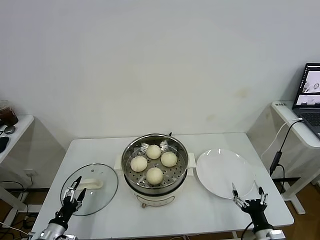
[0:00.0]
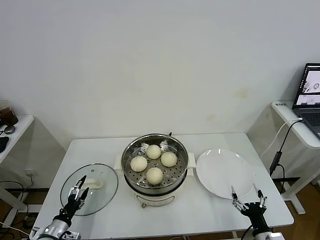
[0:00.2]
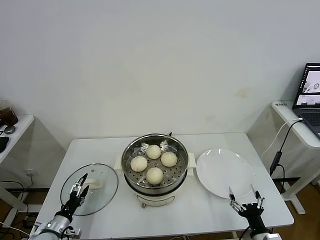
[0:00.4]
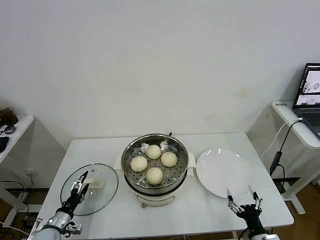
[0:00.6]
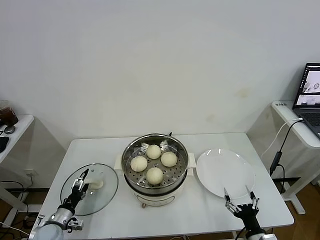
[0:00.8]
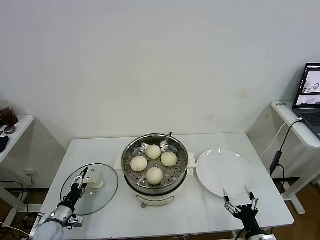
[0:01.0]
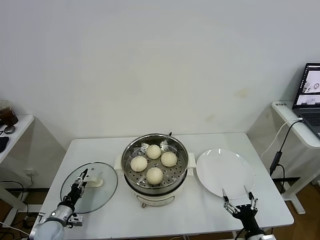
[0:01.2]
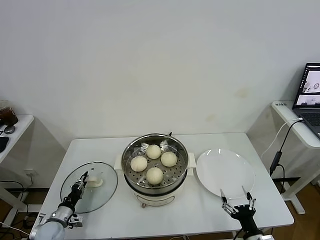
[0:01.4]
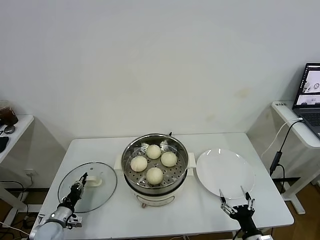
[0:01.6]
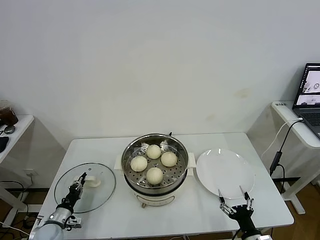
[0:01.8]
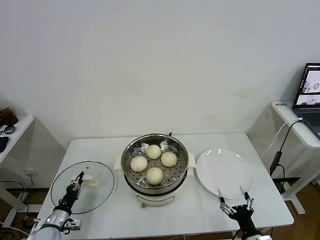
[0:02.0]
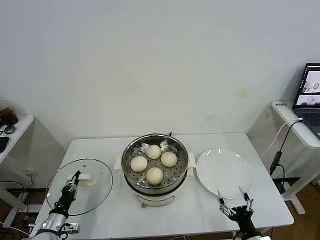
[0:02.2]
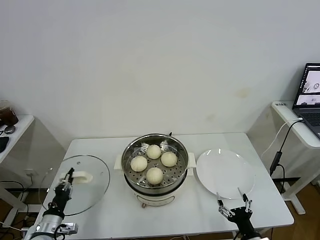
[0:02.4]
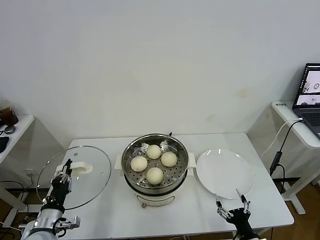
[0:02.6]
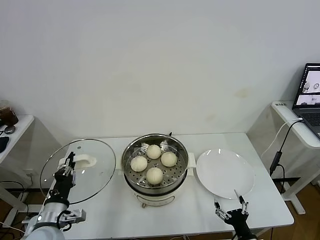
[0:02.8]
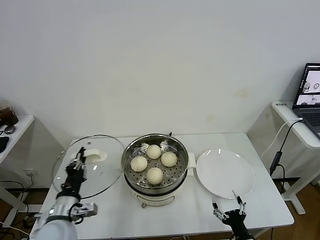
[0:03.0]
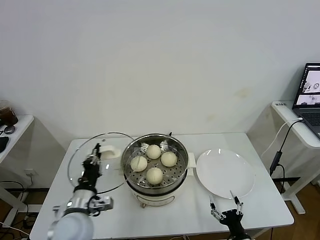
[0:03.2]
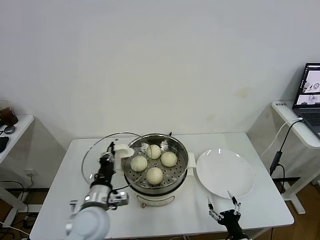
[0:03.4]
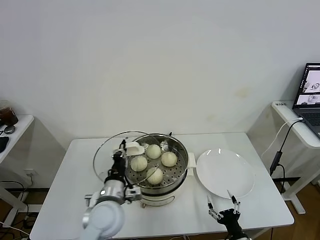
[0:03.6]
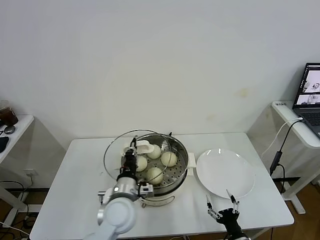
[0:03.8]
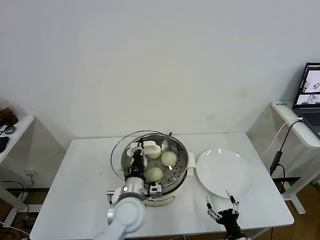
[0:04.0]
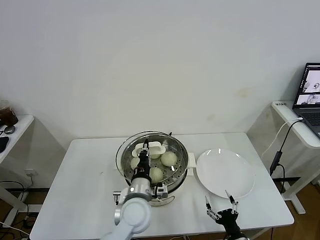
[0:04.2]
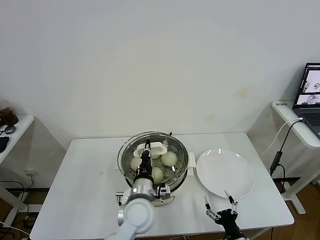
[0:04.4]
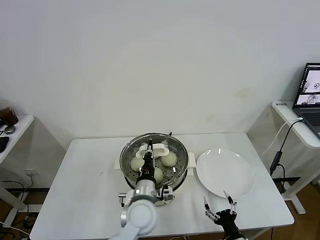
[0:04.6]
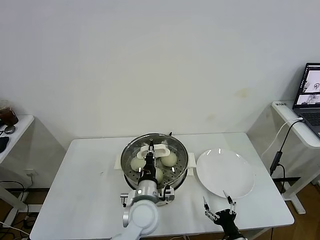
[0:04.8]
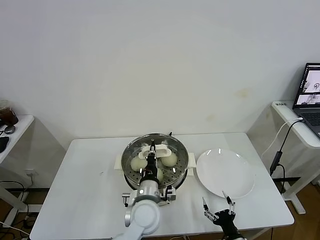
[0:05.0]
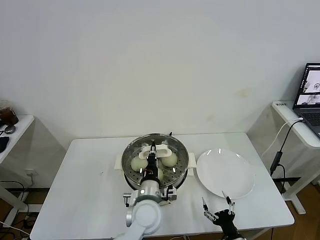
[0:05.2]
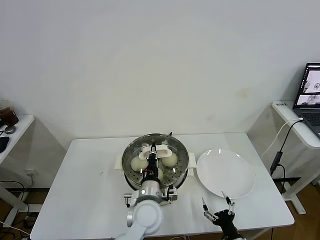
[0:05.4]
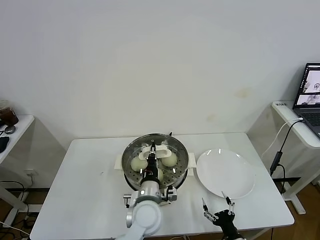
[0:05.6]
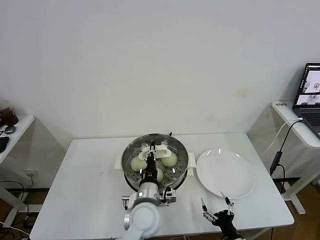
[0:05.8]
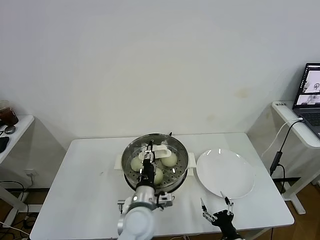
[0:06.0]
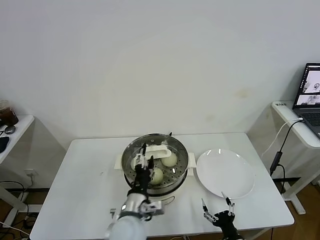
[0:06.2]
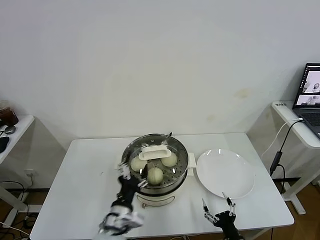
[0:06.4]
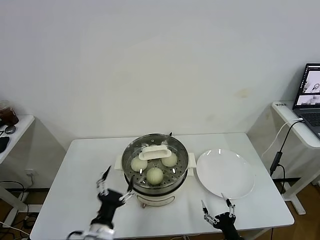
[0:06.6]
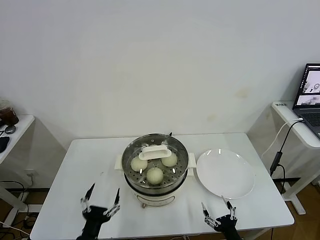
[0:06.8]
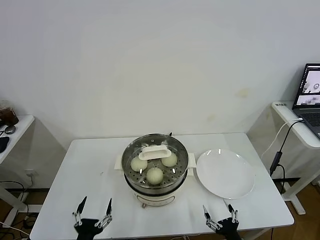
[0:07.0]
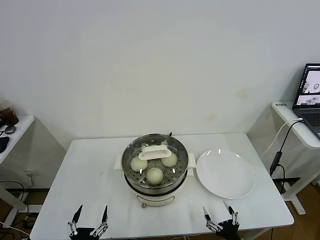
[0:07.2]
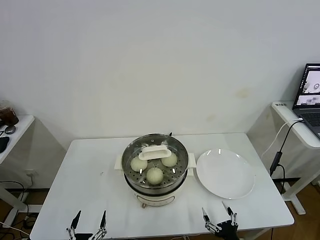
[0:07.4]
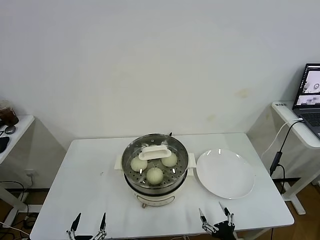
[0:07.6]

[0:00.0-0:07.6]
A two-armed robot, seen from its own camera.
Task of the whole recording: take steamed baozi put them in steamer.
Step, 1.8 to 5.8 s: Place the pot lid on the steamer with left gripper.
0.0 to 1.6 s: The left gripper goes approximately 10 cm forward, and closes up.
1.6 to 3.0 s: The left gripper shifts approximately 25 cm upward and to the right.
3.0 to 4.6 s: The left gripper shifts some 25 cm to the right.
4.6 to 6.0 s: The left gripper opens up.
6.0 to 7.6 s: The left gripper travels backward, to the left and downward by some 30 cm, and opens.

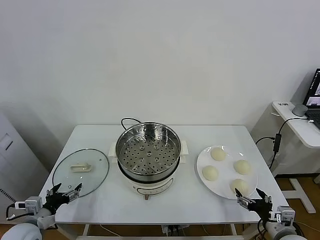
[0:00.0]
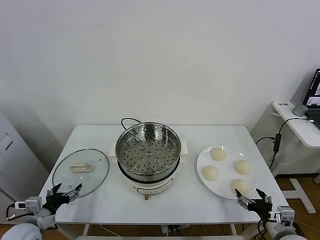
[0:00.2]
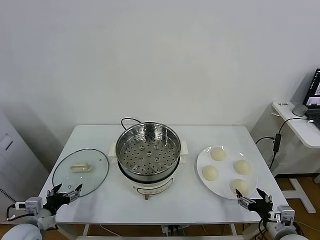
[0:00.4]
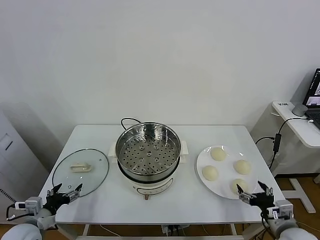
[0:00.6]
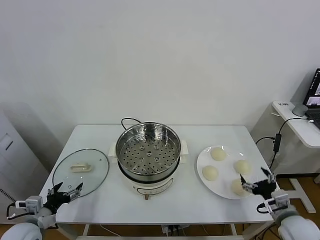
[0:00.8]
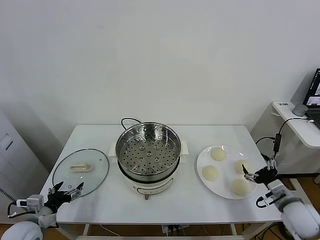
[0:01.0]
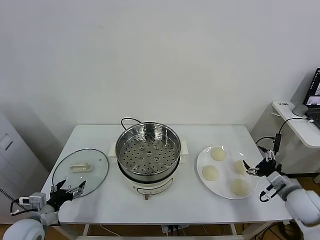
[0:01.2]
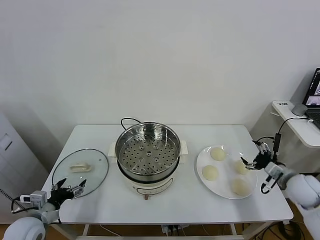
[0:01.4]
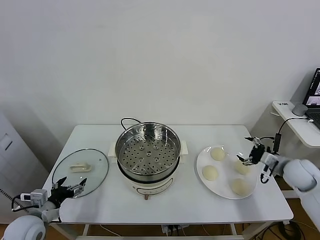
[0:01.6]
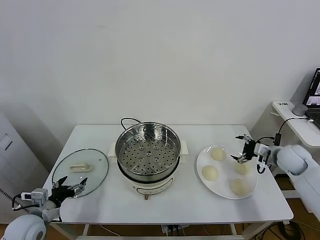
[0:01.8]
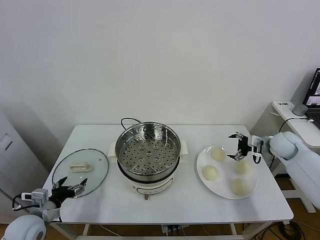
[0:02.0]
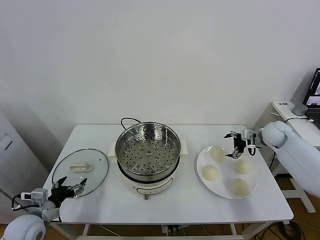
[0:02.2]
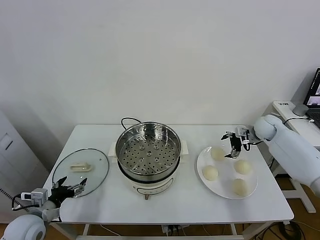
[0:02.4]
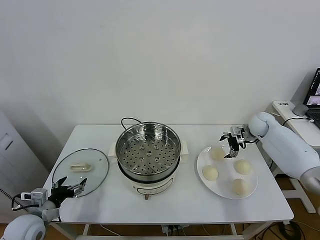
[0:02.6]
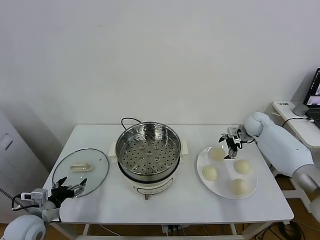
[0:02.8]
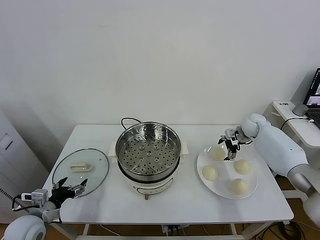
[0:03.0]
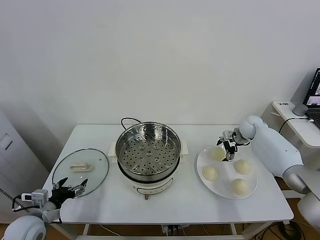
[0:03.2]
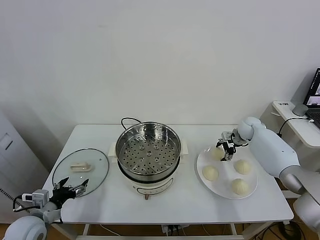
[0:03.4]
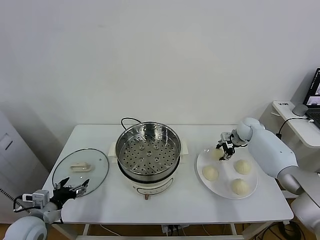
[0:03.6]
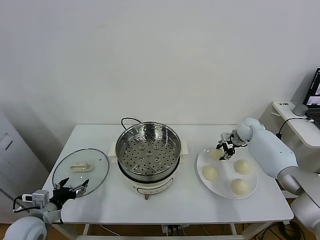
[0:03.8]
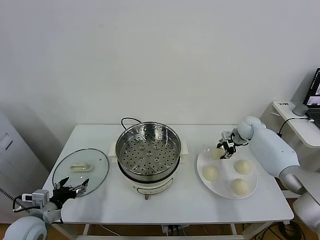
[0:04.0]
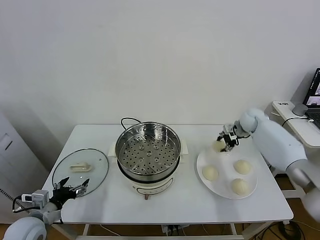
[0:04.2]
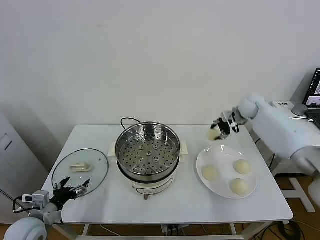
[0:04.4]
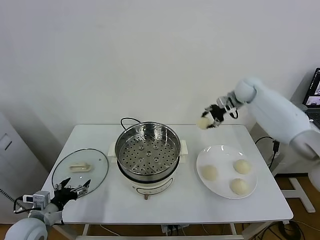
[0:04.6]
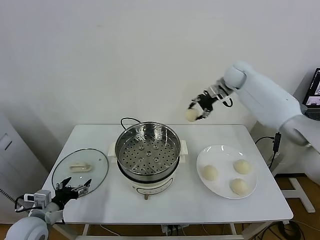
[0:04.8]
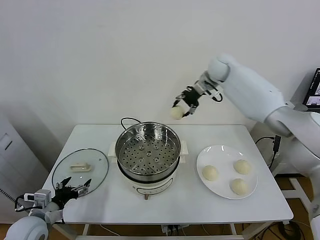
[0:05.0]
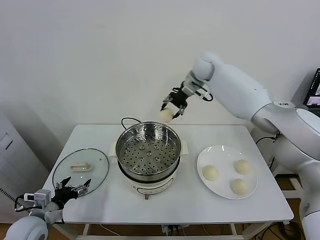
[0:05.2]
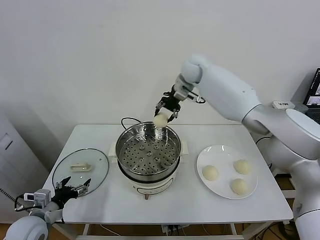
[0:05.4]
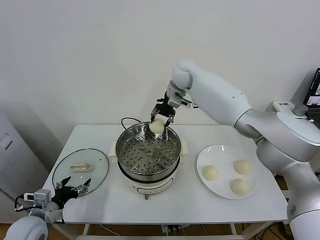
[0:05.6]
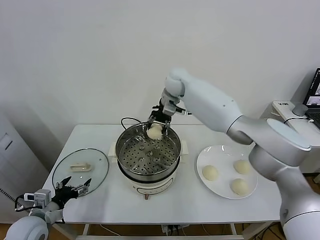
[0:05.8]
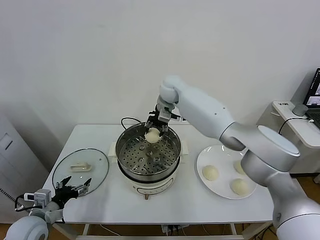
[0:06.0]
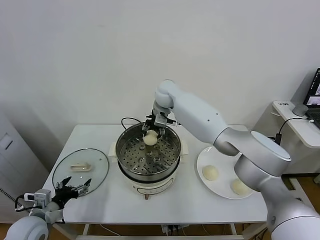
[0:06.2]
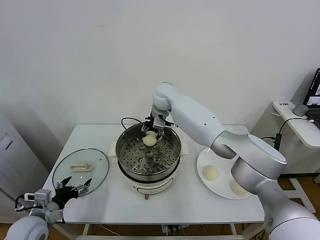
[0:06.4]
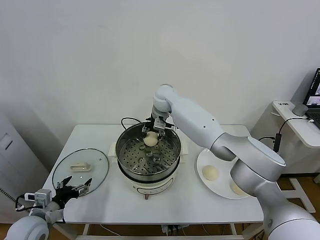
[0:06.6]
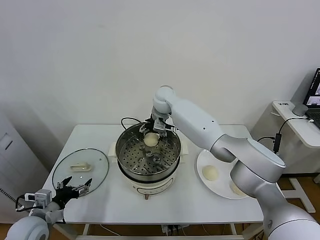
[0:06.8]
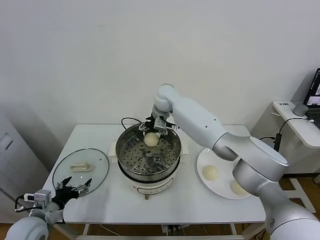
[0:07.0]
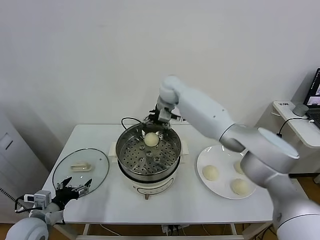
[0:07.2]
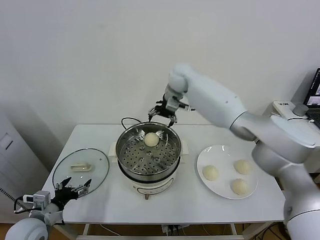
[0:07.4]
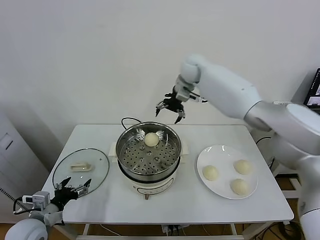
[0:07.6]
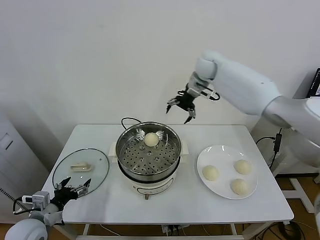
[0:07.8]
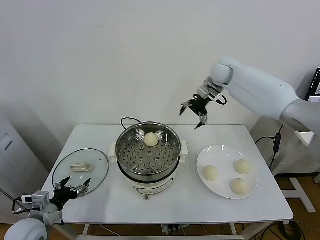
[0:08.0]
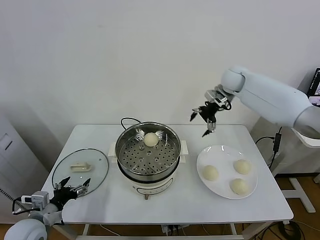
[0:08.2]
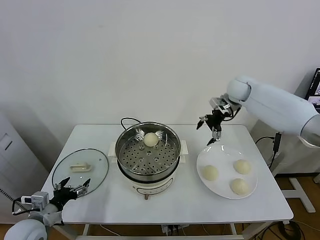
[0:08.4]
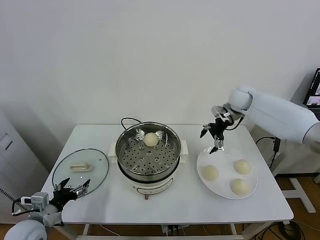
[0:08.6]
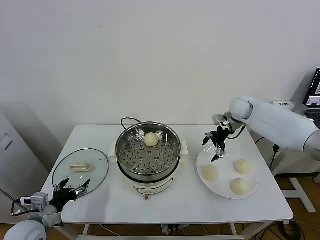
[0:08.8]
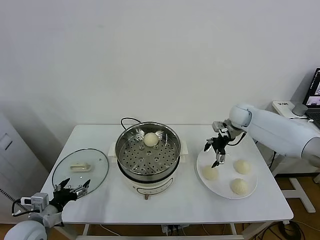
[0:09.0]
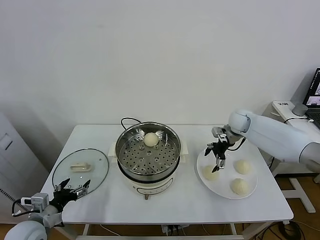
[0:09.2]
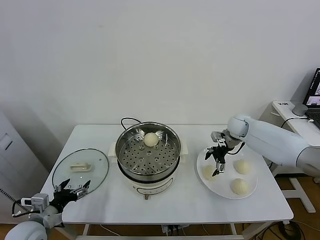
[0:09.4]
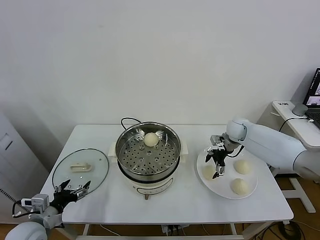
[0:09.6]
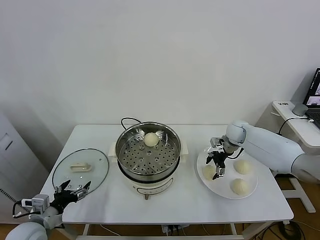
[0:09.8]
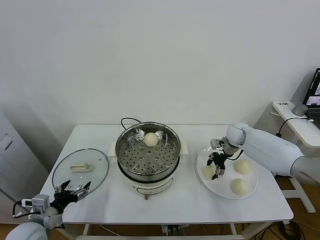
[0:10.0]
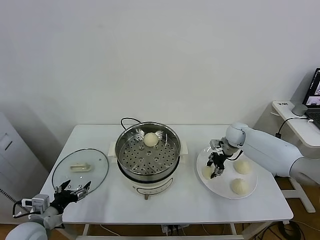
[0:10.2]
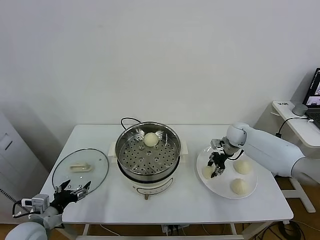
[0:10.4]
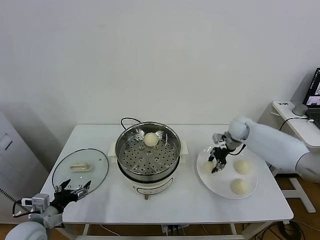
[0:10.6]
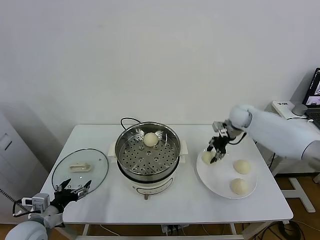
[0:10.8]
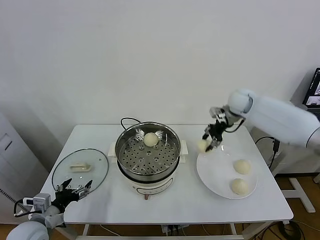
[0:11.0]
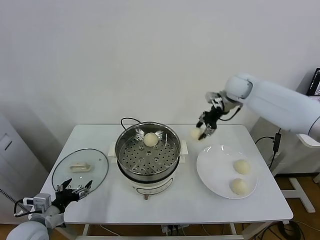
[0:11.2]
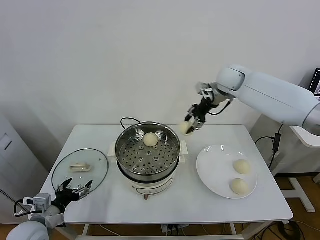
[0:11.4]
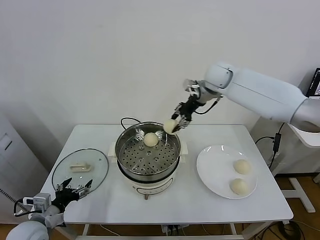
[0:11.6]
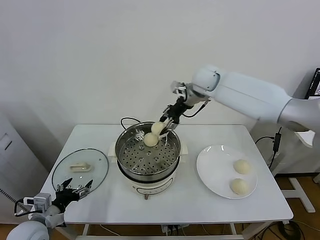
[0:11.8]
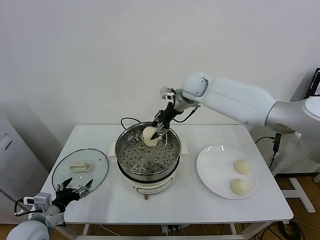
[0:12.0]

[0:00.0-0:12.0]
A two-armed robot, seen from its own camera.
Task of the whole recording: take steamed baozi put them in steamer.
Step, 0.0 to 3.6 s: Grasp the baozi in the plate with right gripper.
Step, 3.8 to 6.8 s: Place the baozi on the steamer with right gripper.
Step, 7.2 to 10.0 s: Grasp the baozi in the plate with right gripper.
1.6 to 3.0 s: The right gripper travels forward by some 20 cm.
3.0 to 4.4 s: The right gripper heads upward, covering about 15 cm, and closes its fingers.
4.4 to 6.0 s: The right gripper moves to the left, some 30 cm.
6.0 to 7.6 s: The right gripper heads to the right and upward, covering approximately 15 cm, and opens.
7.6 to 9.0 s: The right gripper goes roughly 25 cm downward and to the right.
9.0 to 10.4 s: The right gripper goes approximately 5 cm downward, and closes.
10.4 to 12.0 s: The right gripper shifts some 30 cm to the left and upward.

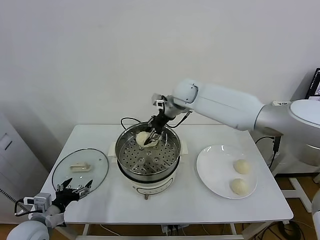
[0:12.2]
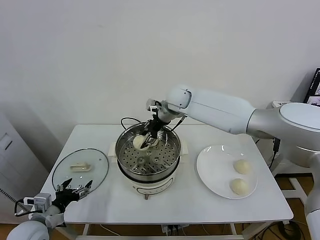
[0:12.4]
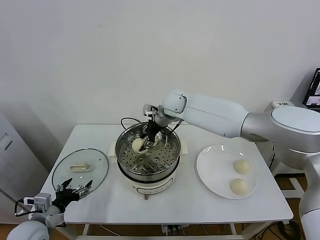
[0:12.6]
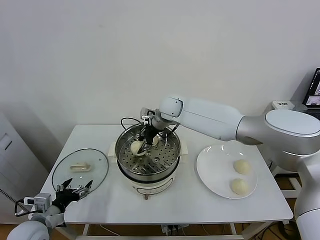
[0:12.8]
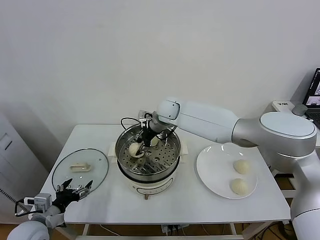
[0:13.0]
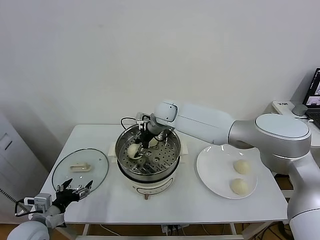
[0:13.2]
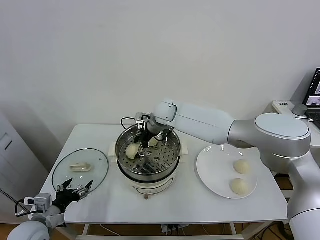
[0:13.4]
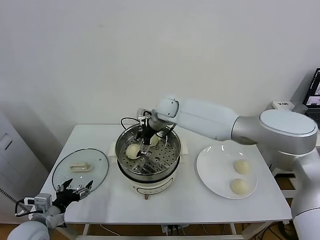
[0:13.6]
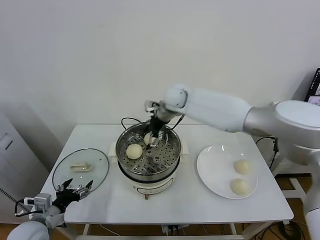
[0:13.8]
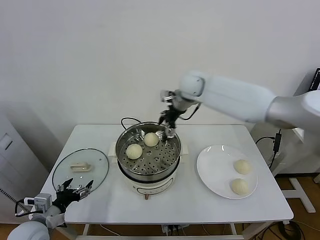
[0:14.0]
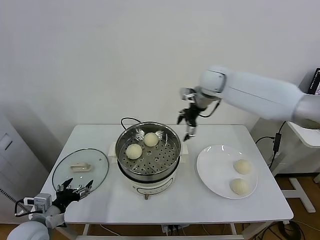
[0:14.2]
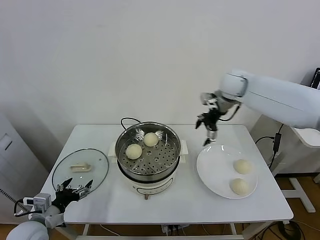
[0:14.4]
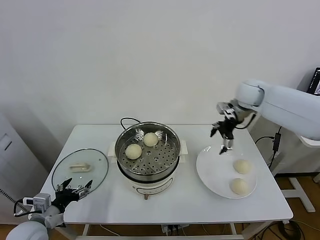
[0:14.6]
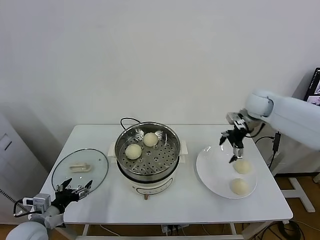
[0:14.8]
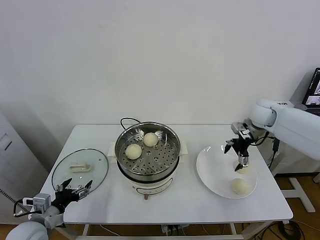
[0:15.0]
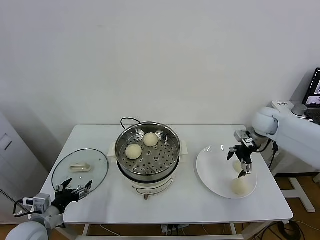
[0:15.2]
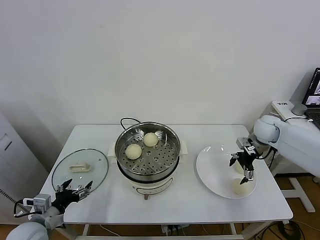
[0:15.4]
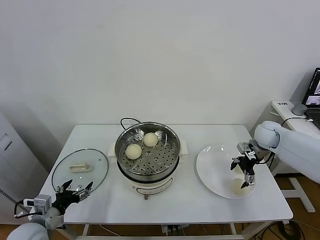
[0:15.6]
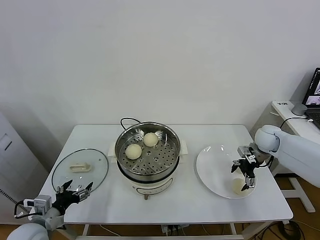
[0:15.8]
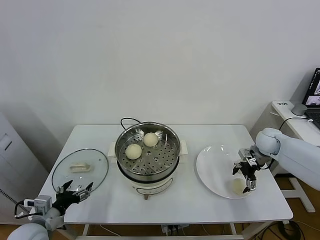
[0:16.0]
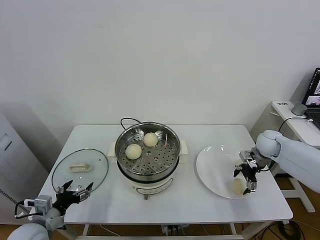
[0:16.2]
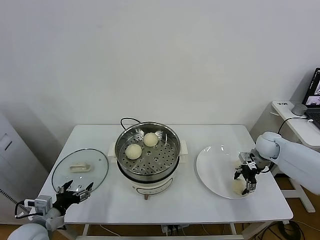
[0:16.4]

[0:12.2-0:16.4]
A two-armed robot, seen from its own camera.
Task of the whole recording: take steamed baozi put them in steamer.
12.2 to 13.6 s: The right gripper opens up.
13.6 to 15.0 s: The right gripper moves to the right, approximately 35 cm.
15.0 to 16.4 s: The right gripper is displaced downward by about 10 cm, and closes up.
